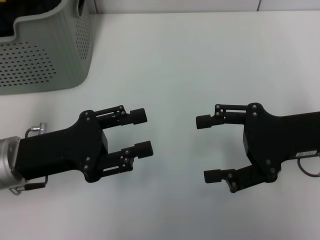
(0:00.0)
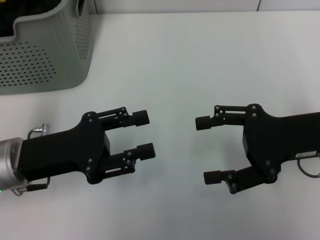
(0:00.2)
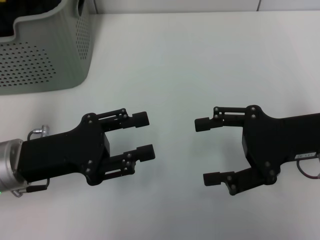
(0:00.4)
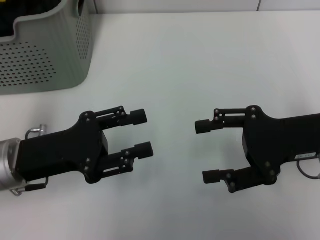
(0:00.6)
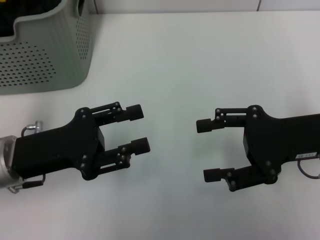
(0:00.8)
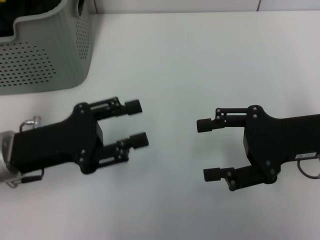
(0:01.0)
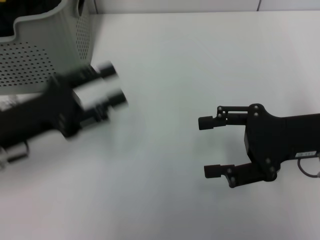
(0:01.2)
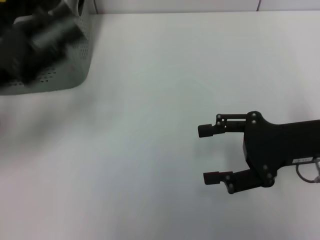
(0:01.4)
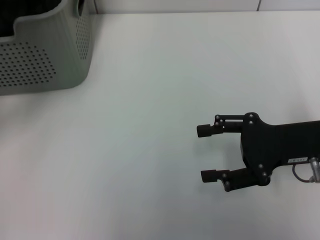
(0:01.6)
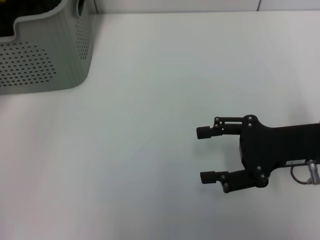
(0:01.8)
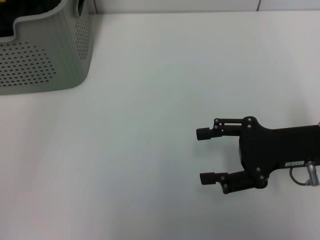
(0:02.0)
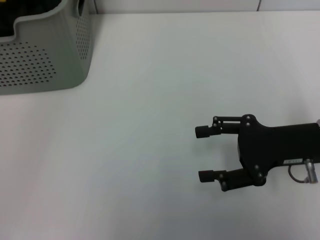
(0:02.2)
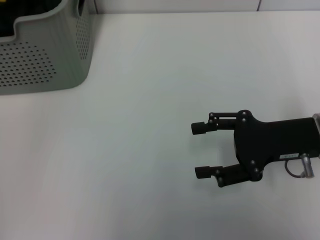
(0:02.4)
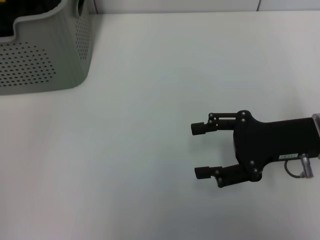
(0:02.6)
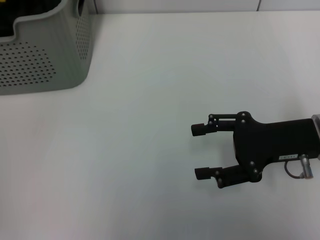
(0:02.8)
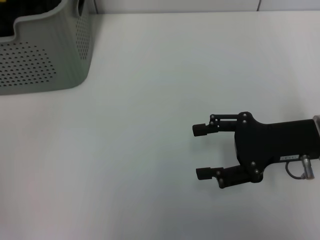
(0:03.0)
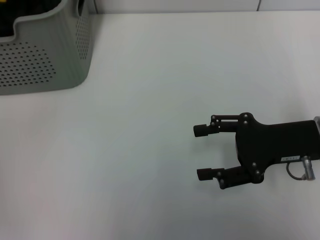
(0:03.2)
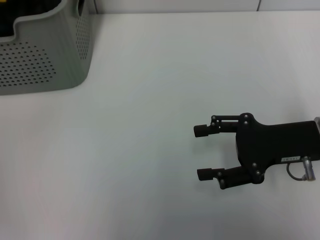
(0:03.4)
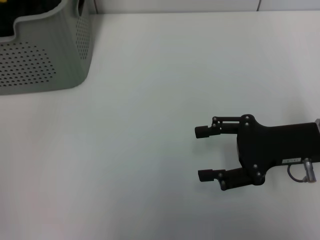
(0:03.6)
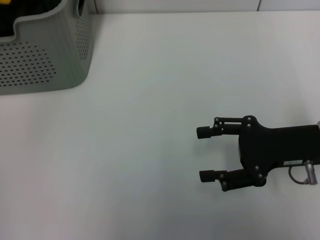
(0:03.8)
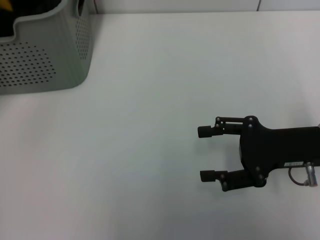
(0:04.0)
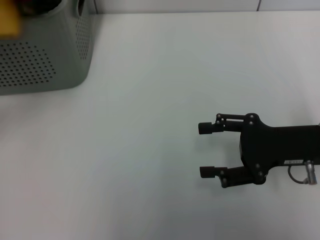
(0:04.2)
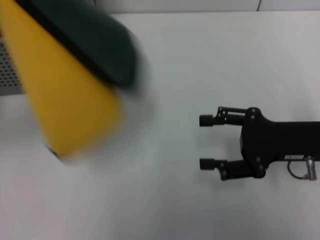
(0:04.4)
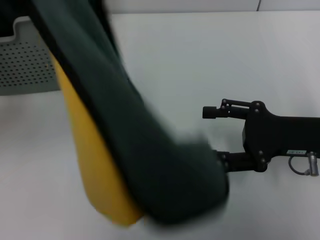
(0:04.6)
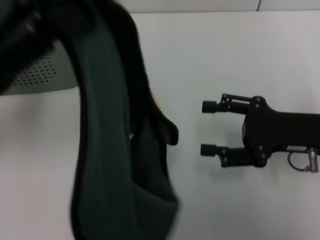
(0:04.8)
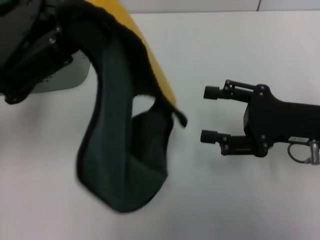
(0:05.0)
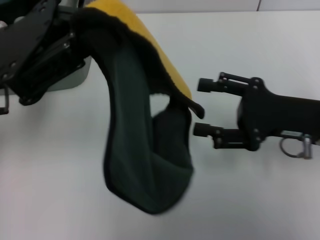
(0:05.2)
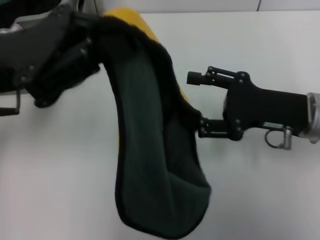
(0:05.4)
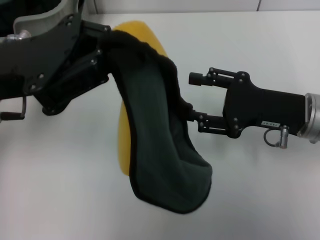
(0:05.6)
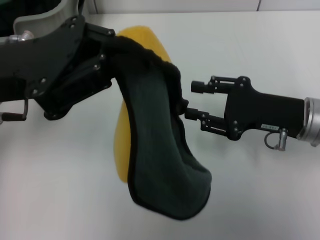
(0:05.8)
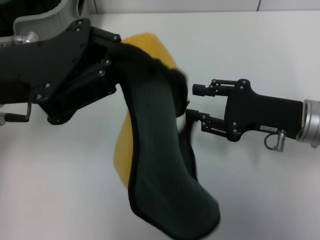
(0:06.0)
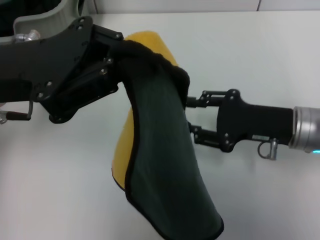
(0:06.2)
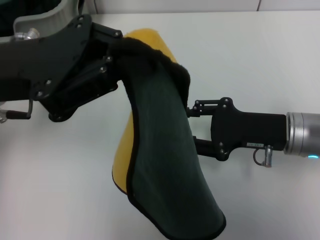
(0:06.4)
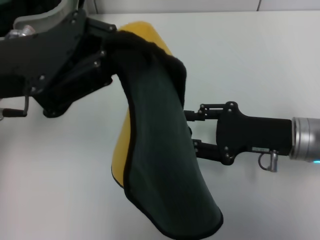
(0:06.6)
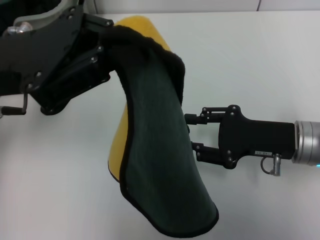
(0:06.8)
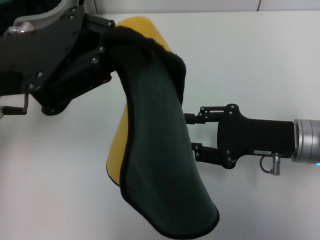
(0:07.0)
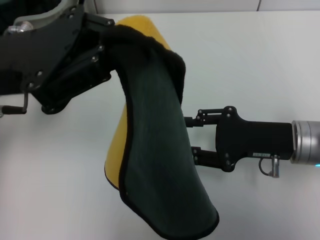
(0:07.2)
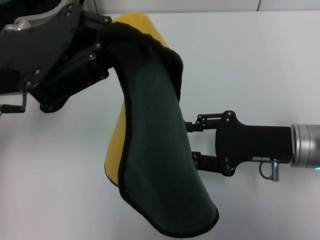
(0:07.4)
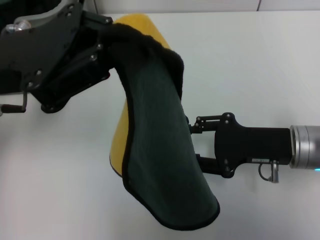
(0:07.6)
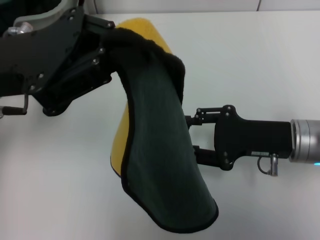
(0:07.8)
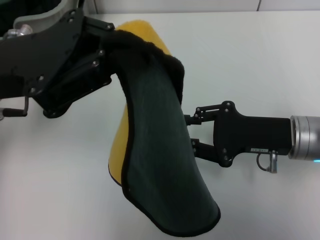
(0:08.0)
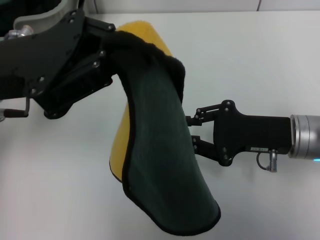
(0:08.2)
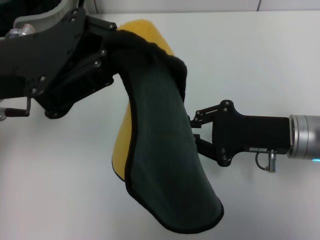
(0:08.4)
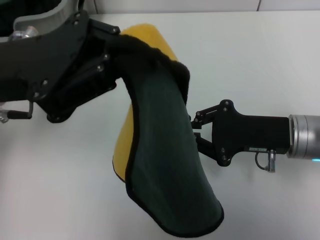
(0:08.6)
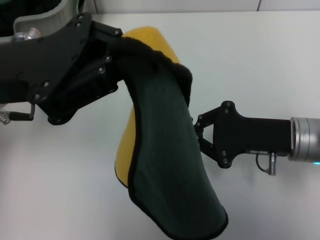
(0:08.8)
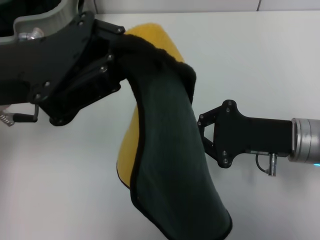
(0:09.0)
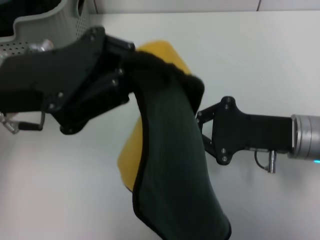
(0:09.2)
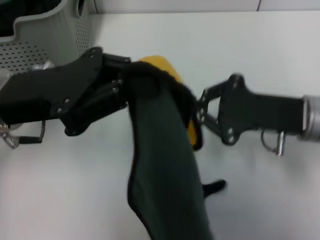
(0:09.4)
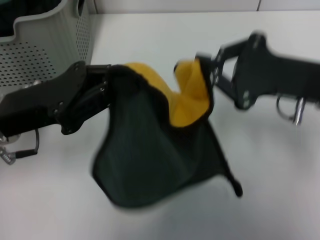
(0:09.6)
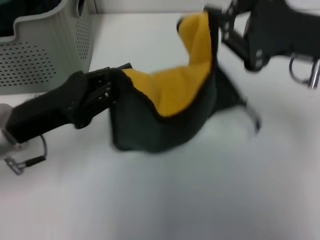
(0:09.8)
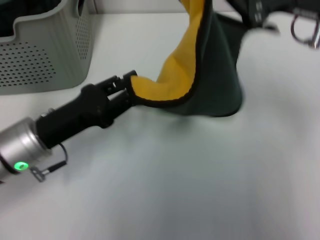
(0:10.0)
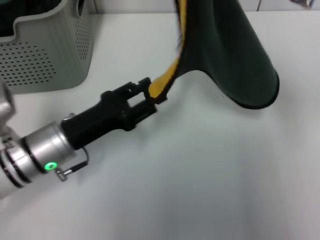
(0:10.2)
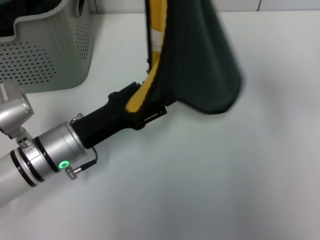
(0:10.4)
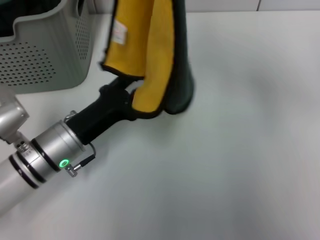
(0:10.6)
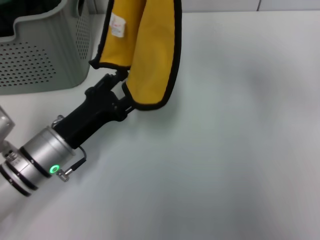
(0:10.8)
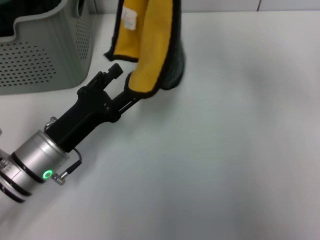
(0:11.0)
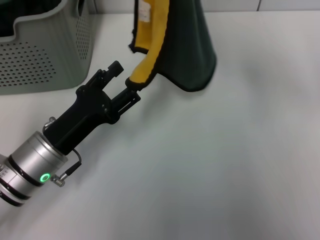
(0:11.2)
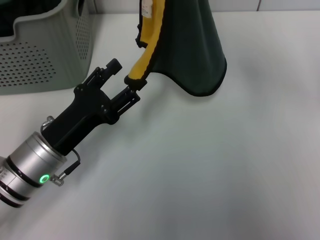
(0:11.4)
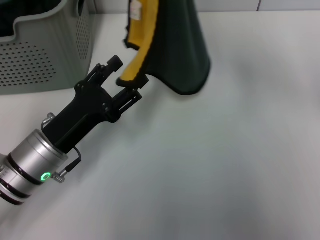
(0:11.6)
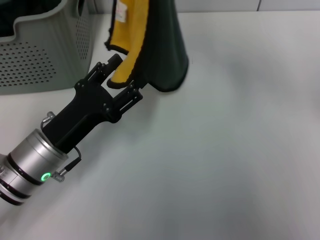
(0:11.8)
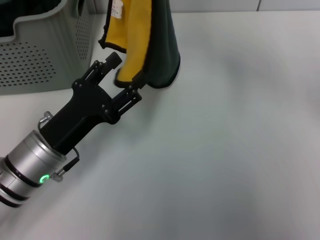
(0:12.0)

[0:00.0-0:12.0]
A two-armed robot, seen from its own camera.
Task of the whole recording: pick up the towel from the storage box and lay it flat on the table.
Step, 0:00.0 to 0:03.6: Pick up a towel with the left gripper.
0:00.0 to 0:01.6: The left gripper heads upward, to the left and forward, covering about 15 cm.
0:01.6 to 0:03.0: The left gripper moves forward and to the left, about 10 cm.
0:03.0 to 0:04.4: The left gripper heads backward, to the right and upward, covering about 15 cm, and closes.
0:04.4 to 0:06.0: The left gripper shifts approximately 10 cm to the right.
0:07.6 to 0:09.0: The right gripper closes.
0:09.0 to 0:10.4: The right gripper shifts roughly 20 cm upward. Meanwhile the left gripper goes approximately 15 cm downward, and opens its fingers.
0:10.4 to 0:12.0: The right gripper ends up approximately 5 cm from where it was.

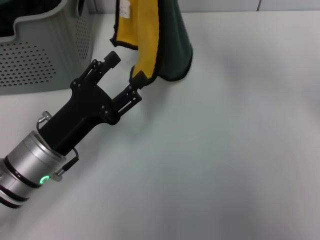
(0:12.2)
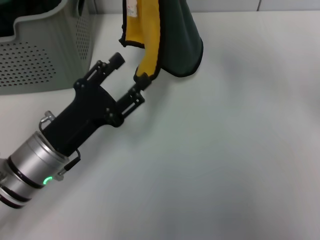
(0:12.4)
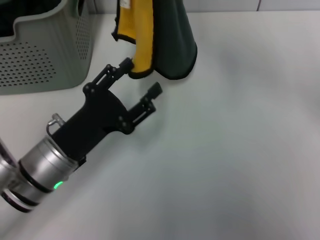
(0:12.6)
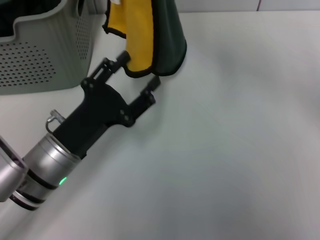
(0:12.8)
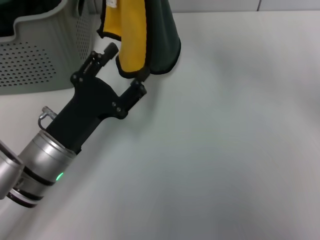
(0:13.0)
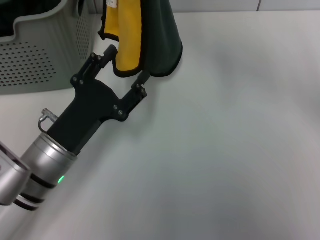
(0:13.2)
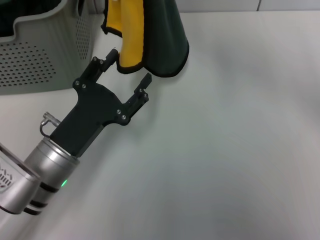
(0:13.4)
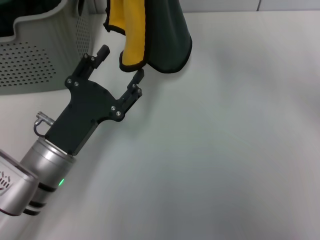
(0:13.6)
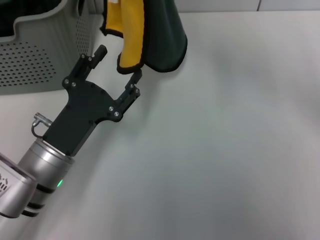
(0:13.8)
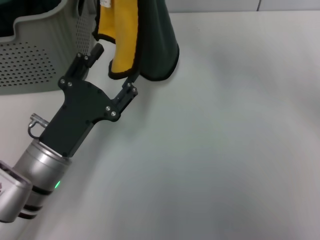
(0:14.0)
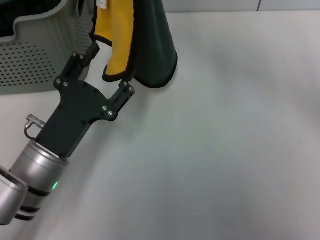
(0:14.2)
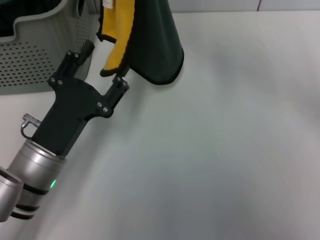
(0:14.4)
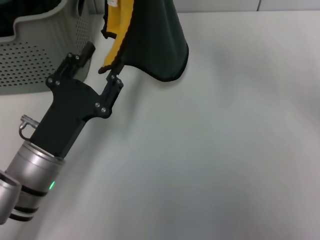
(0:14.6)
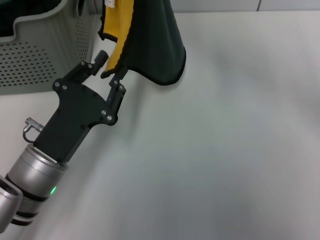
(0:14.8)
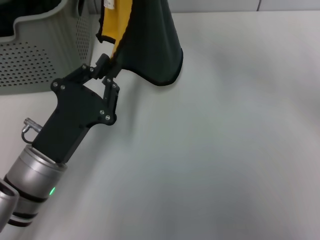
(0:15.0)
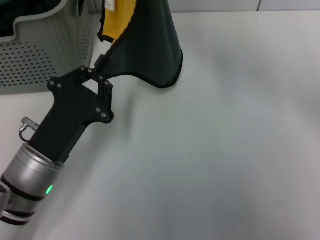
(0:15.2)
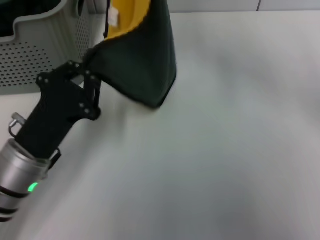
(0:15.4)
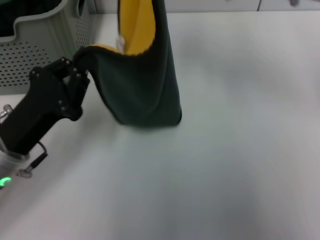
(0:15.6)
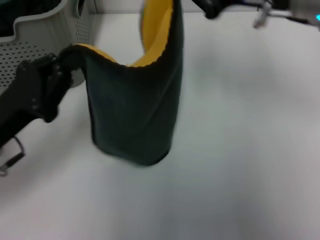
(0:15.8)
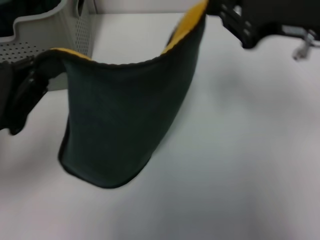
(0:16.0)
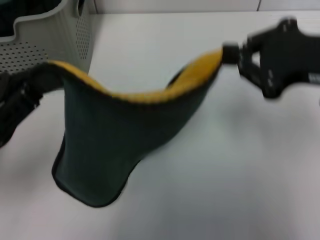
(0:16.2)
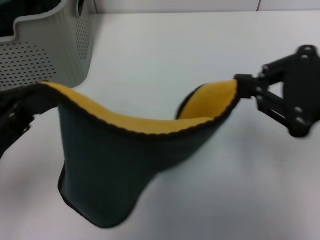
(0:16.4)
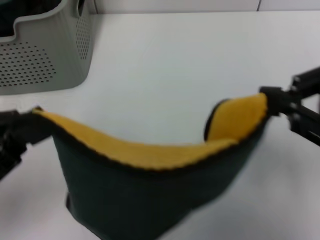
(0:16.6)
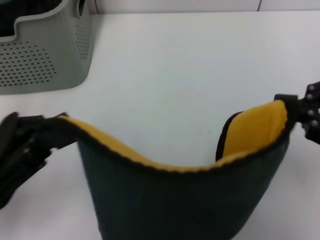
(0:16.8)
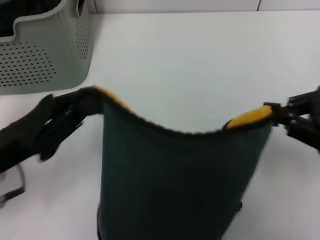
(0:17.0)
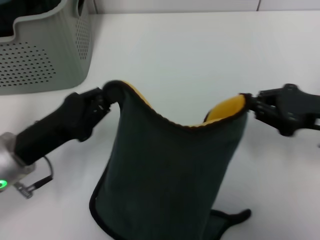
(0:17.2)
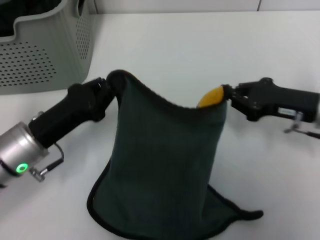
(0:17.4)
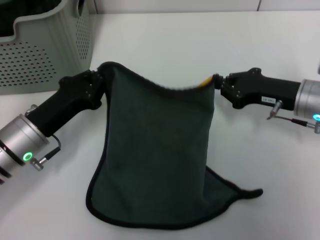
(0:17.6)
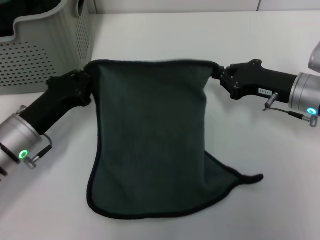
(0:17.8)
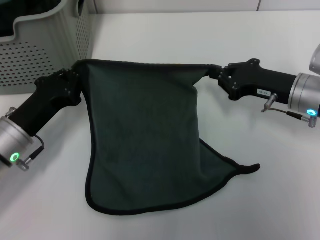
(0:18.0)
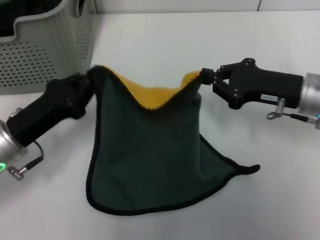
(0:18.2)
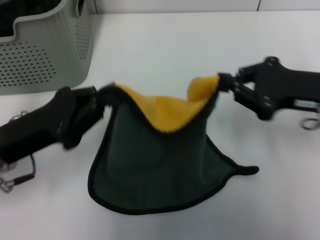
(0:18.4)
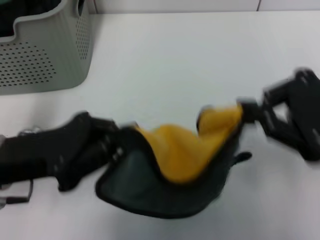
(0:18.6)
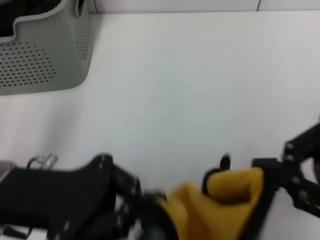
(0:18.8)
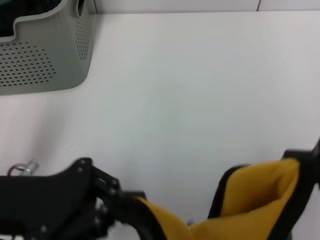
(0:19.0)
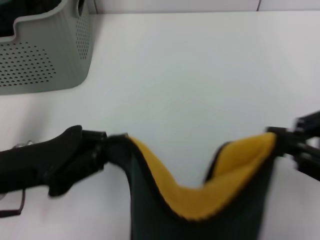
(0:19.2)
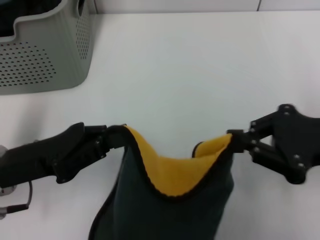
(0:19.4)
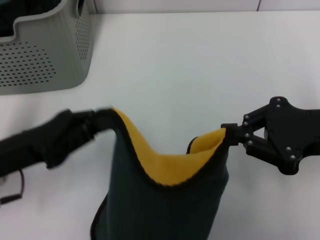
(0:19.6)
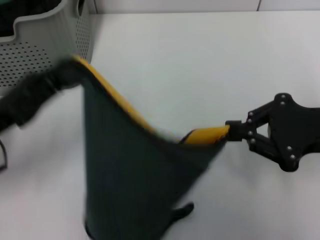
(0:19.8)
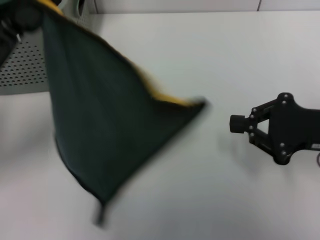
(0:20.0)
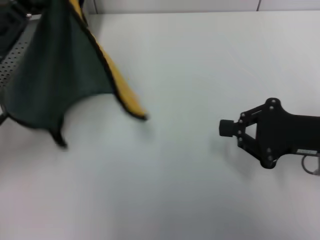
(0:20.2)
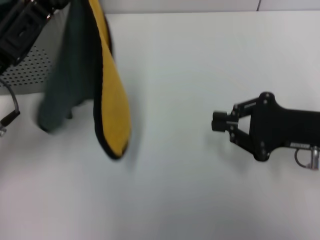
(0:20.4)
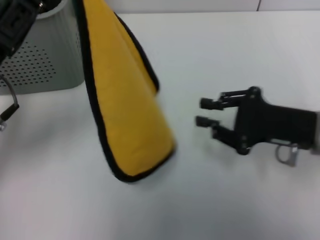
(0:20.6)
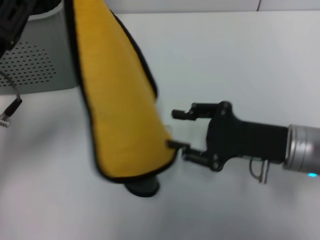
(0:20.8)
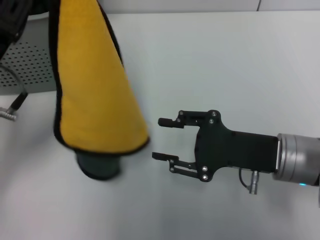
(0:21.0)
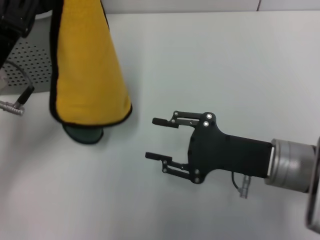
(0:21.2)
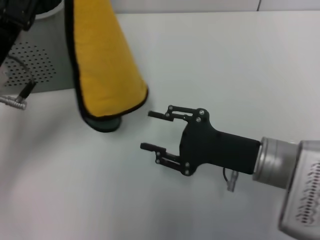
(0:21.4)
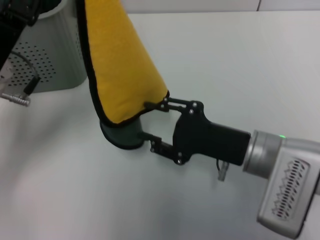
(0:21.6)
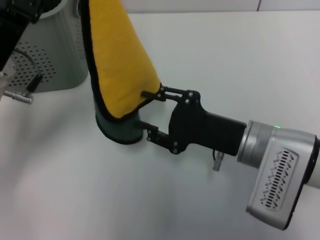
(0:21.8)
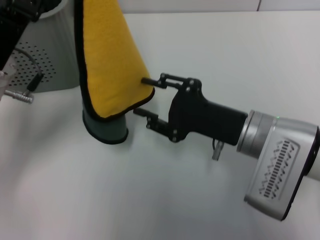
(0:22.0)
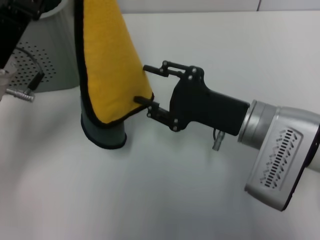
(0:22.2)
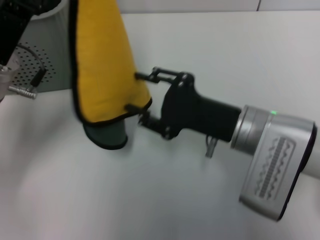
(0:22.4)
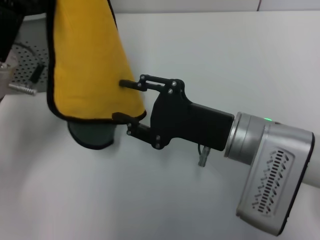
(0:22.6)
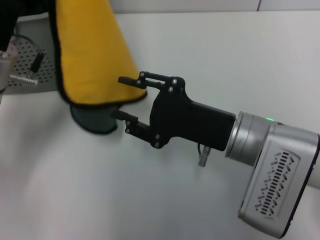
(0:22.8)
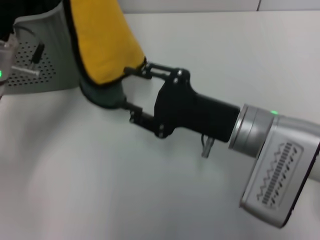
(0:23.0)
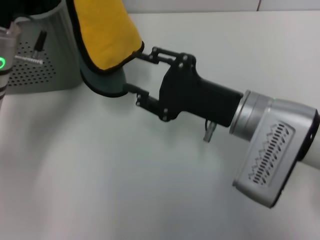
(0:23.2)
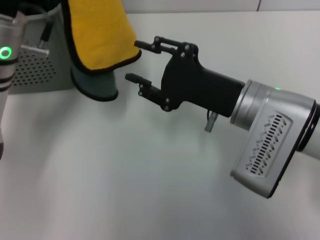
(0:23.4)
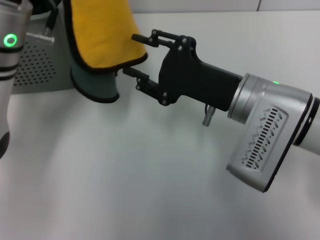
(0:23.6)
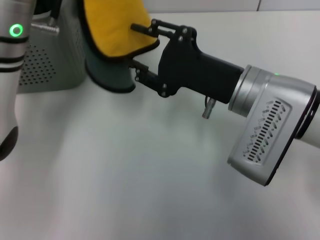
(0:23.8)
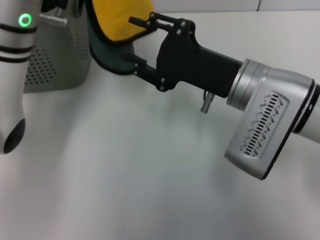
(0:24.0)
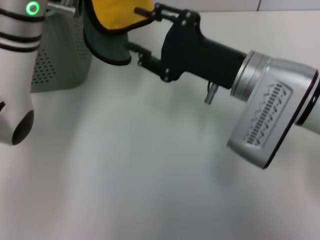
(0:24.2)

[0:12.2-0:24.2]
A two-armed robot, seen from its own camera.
Task of the whole recording: pick up the towel from the storage box and lay it flat on the table.
0:13.8 to 0:15.2: The left gripper closes its fingers.
0:15.2 to 0:16.6: The left gripper is displaced upward and to the left by approximately 15 cm, while the right gripper goes roughly 25 cm backward and to the right.
0:16.6 to 0:18.2: The right gripper is displaced downward and forward by some 20 cm; the left gripper goes approximately 10 cm downward and forward.
0:18.2 to 0:19.8: The right gripper is displaced backward and upward by approximately 10 cm.
0:19.8 to 0:21.2: The left gripper changes place by approximately 5 cm; the right gripper goes approximately 10 cm to the left and downward, and opens.
0:21.2 to 0:22.6: The right gripper goes some 5 cm to the left.
0:22.6 to 0:24.2: The left gripper shifts some 10 cm forward and to the right. Meanwhile the right gripper moves approximately 5 cm.
